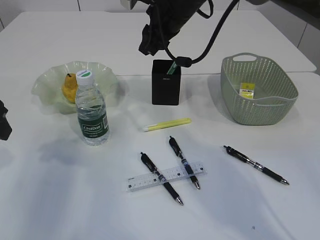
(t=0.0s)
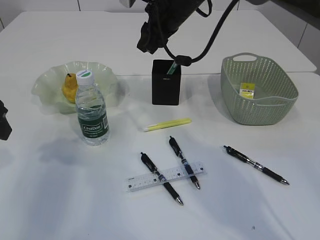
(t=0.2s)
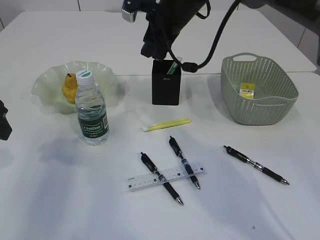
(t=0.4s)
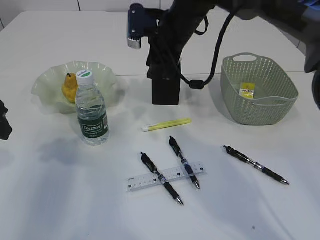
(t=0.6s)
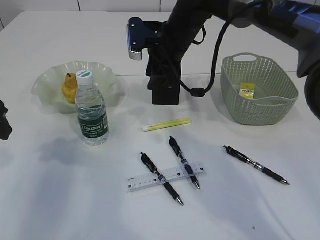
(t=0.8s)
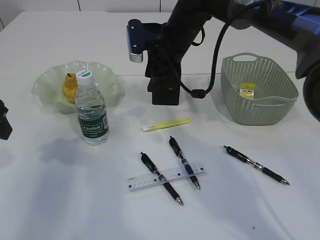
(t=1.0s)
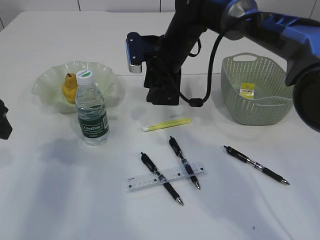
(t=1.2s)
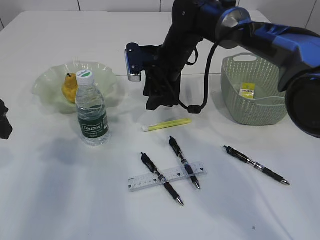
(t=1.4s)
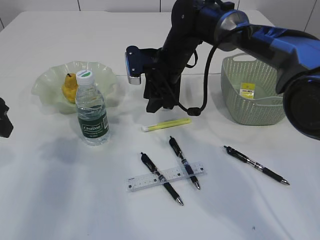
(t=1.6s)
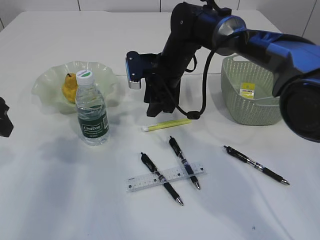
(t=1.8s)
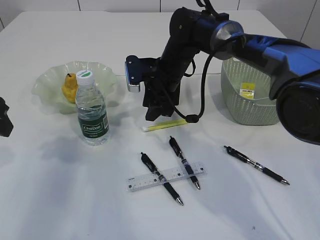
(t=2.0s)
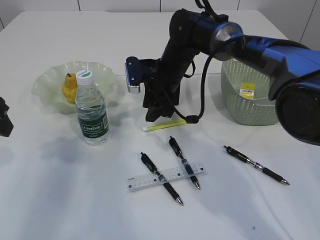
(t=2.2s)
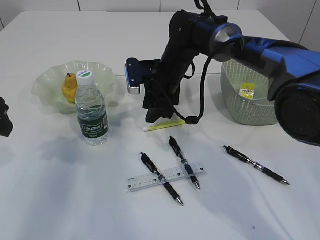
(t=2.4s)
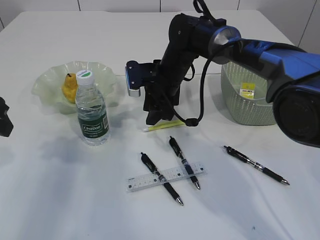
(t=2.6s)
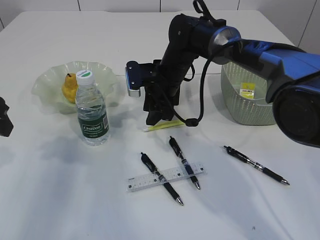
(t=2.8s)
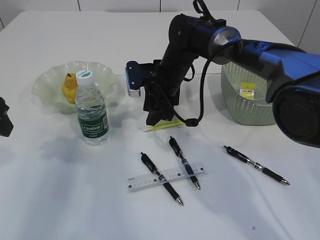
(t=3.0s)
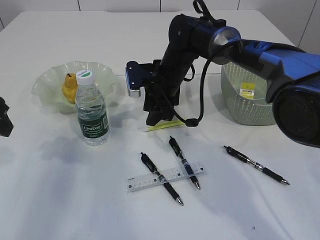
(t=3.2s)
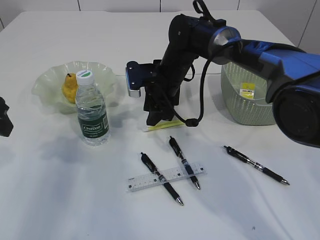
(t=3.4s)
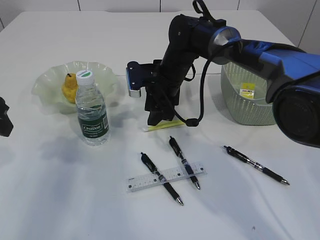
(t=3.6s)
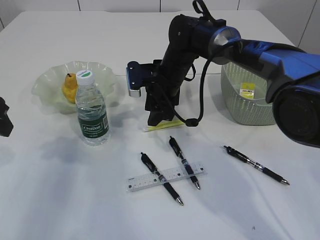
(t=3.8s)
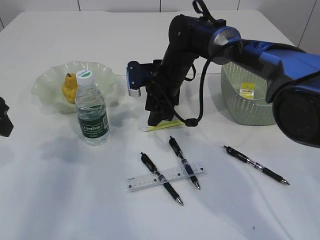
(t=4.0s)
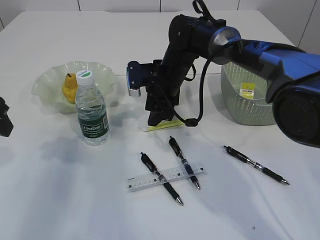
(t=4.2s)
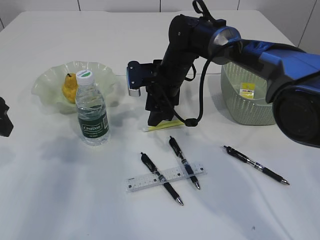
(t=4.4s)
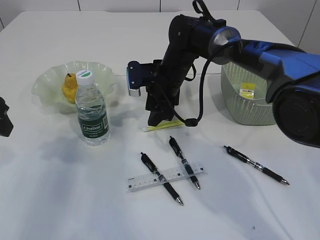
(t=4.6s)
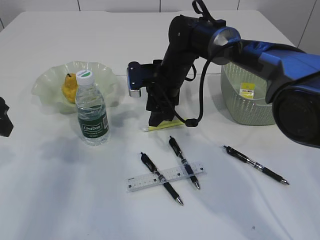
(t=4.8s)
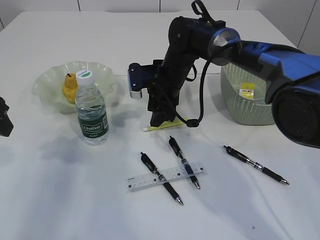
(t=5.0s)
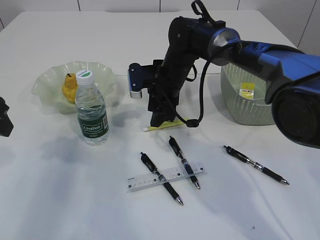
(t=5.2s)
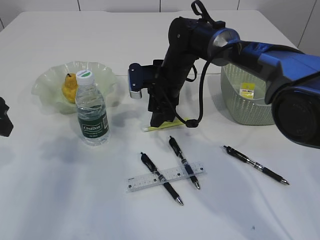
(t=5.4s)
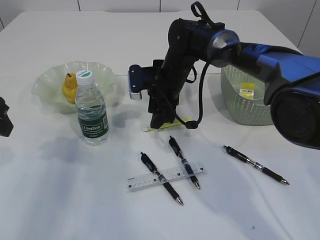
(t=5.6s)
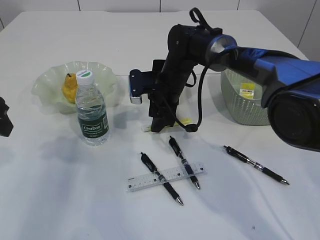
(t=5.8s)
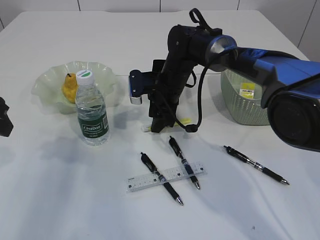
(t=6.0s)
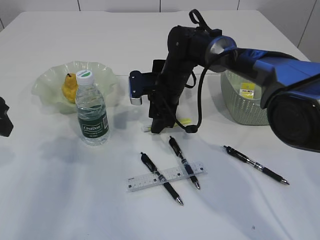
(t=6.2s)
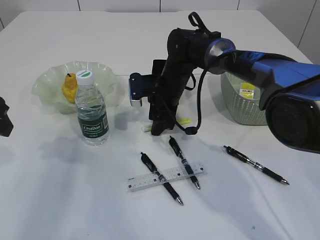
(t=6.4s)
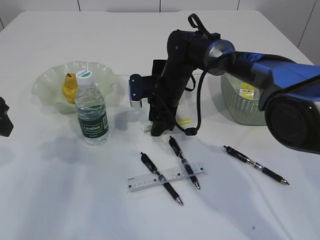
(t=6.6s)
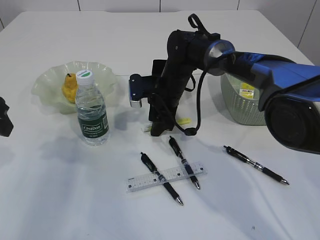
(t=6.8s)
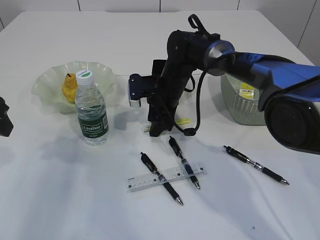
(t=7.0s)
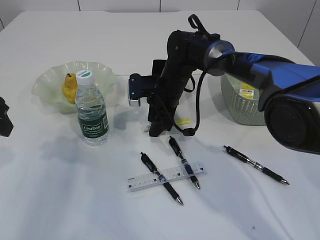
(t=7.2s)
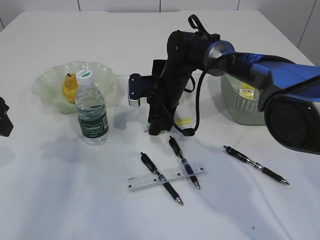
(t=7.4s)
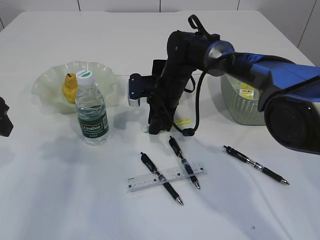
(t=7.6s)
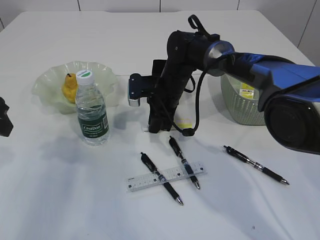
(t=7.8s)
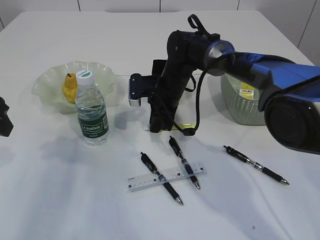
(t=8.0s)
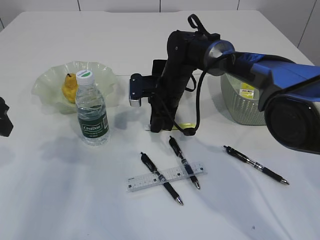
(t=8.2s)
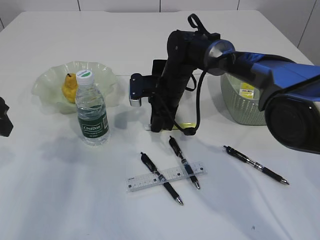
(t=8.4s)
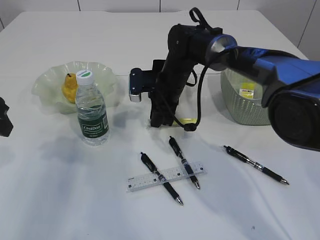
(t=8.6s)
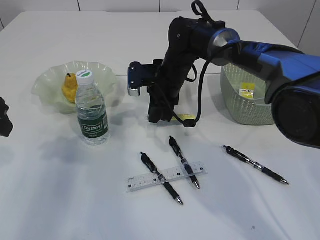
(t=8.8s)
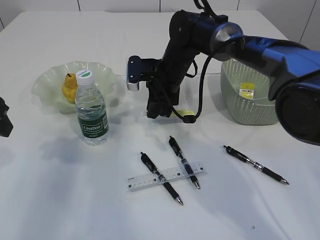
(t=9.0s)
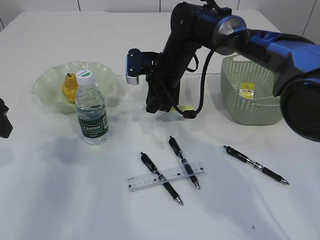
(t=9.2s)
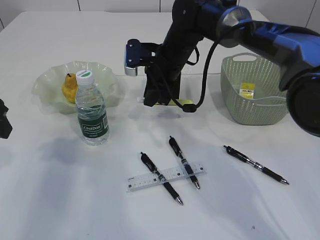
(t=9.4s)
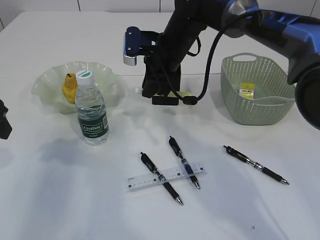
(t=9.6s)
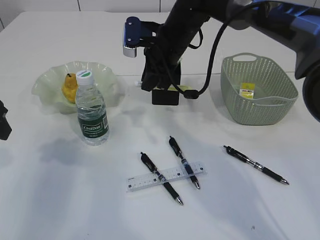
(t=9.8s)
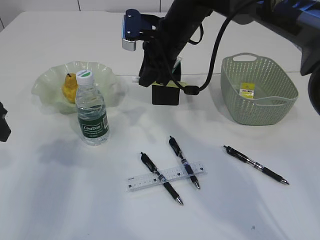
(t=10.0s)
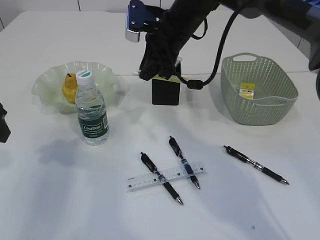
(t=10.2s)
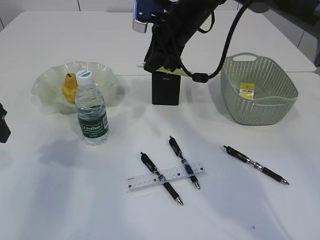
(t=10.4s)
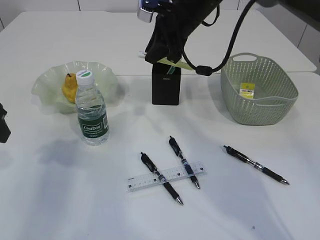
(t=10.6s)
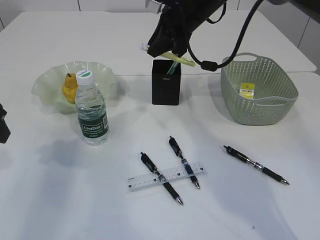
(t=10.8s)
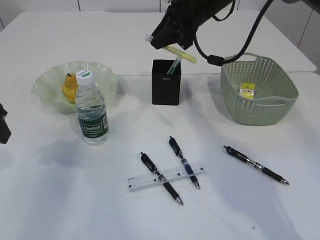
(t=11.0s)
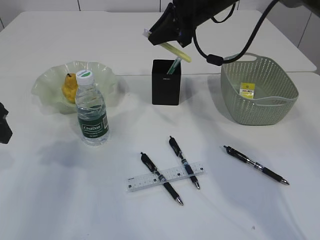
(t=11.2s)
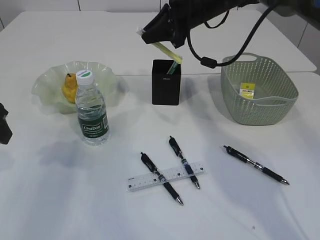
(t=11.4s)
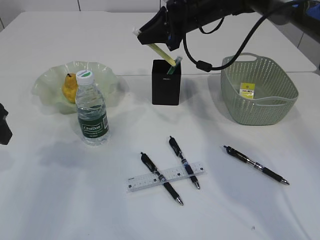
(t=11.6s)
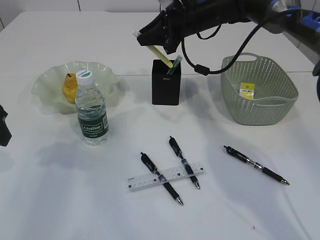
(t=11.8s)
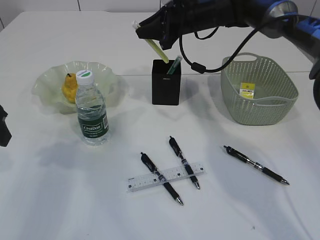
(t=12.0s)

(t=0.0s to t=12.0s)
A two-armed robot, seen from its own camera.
Step, t=0.0s - t=9.0s: pick up the yellow knife.
t=0.0s - t=1.6s: The right gripper goes roughly 10 cm downward.
t=1.6s - t=3.0s: The grippers stay close to where they were, moving slightly.
t=3.0s - t=4.4s: The two grippers keep their place.
t=4.4s - t=6.0s: The grippers stay close to where they were, moving slightly.
t=6.0s - t=7.6s: Both grippers stay put.
t=7.6s - t=9.0s: There are only small adjustments of the grippers.
t=9.0s - t=10.4s: The right gripper goes roughly 10 cm upward.
t=10.4s - t=12.0s: The right gripper shifts roughly 5 cm forward.

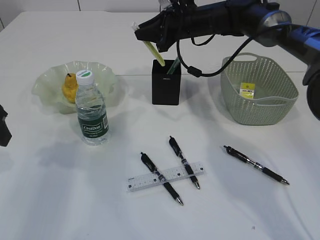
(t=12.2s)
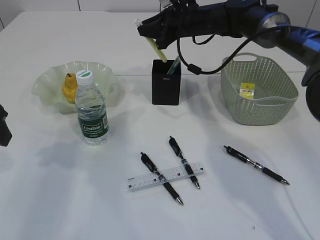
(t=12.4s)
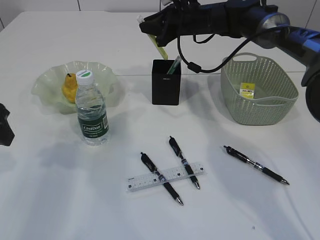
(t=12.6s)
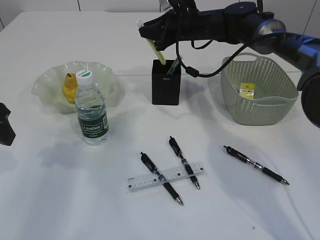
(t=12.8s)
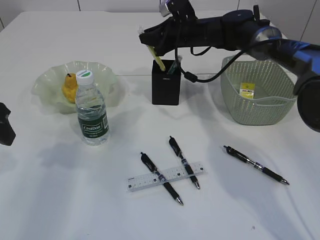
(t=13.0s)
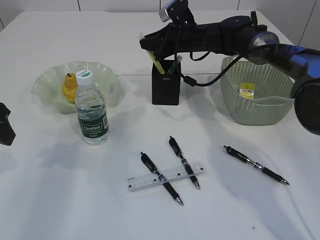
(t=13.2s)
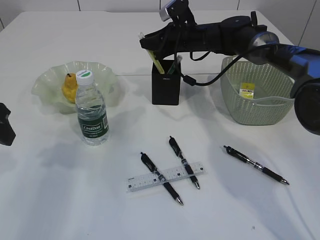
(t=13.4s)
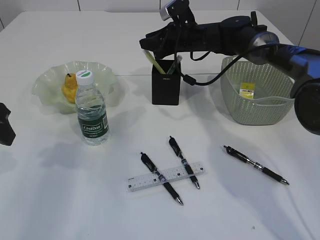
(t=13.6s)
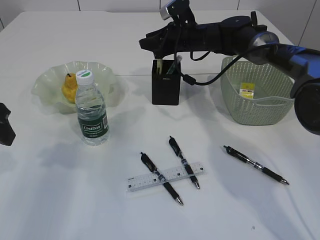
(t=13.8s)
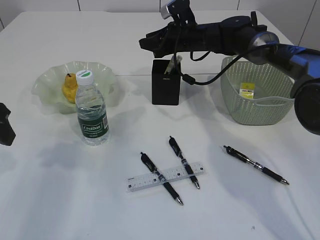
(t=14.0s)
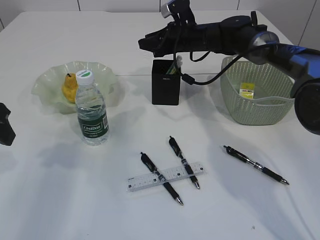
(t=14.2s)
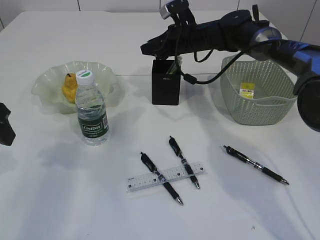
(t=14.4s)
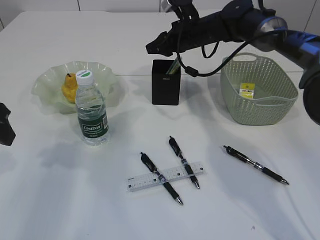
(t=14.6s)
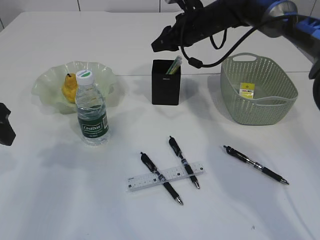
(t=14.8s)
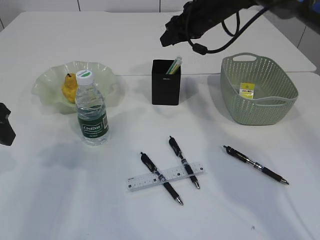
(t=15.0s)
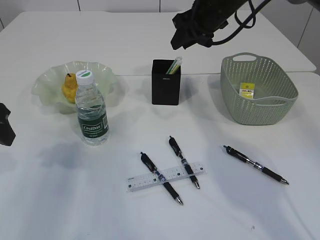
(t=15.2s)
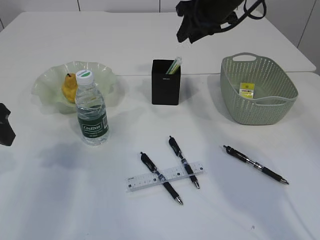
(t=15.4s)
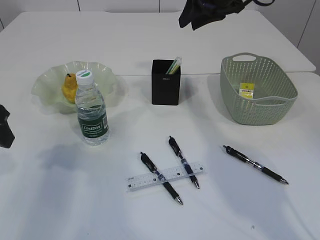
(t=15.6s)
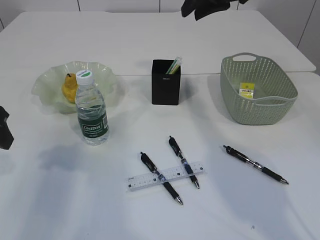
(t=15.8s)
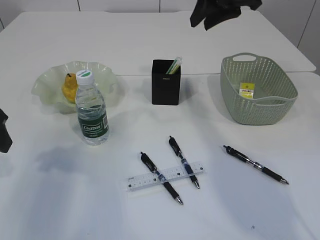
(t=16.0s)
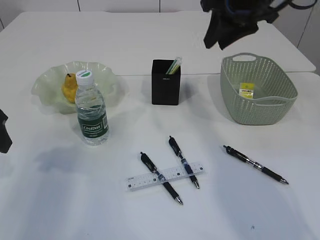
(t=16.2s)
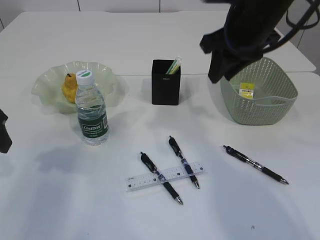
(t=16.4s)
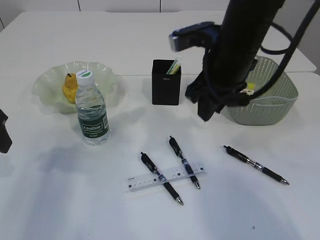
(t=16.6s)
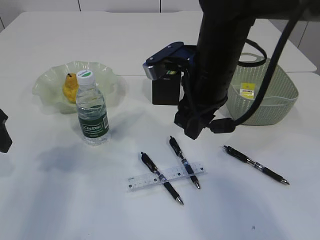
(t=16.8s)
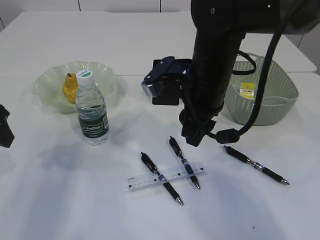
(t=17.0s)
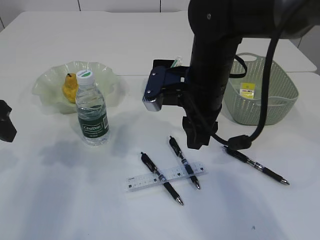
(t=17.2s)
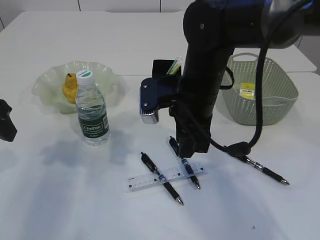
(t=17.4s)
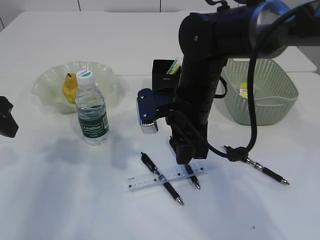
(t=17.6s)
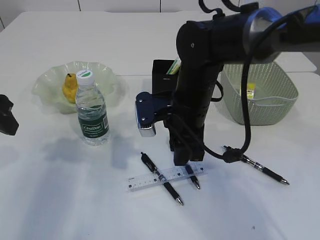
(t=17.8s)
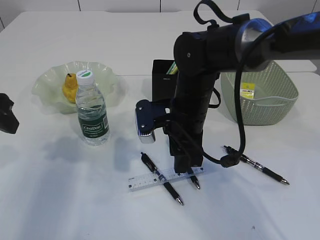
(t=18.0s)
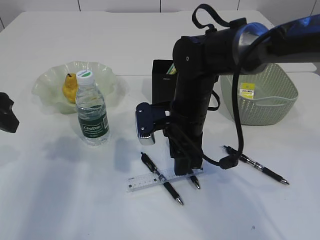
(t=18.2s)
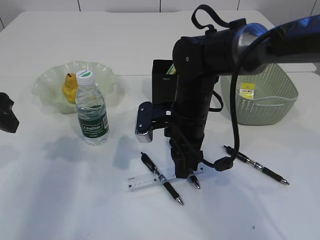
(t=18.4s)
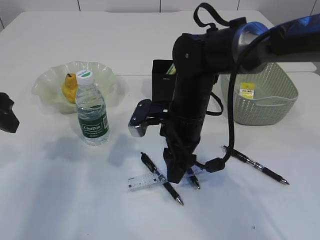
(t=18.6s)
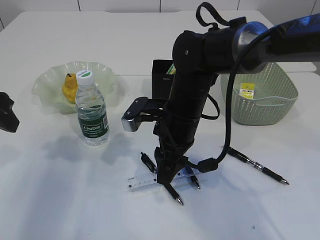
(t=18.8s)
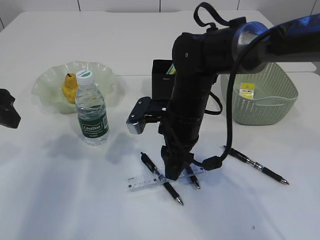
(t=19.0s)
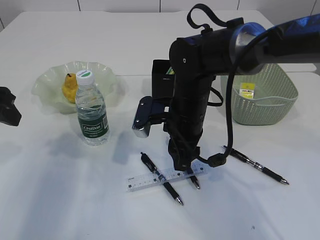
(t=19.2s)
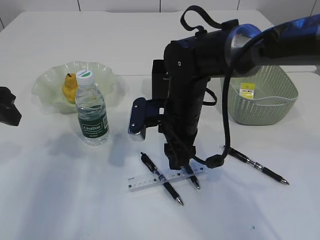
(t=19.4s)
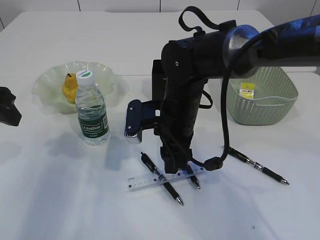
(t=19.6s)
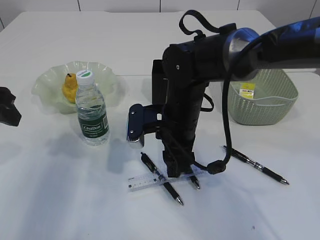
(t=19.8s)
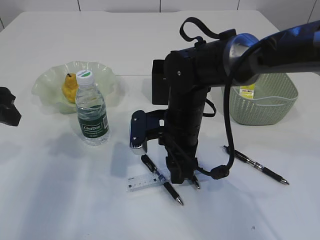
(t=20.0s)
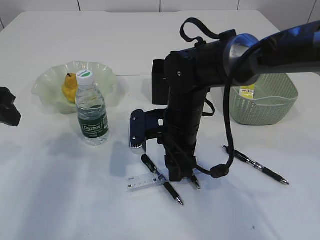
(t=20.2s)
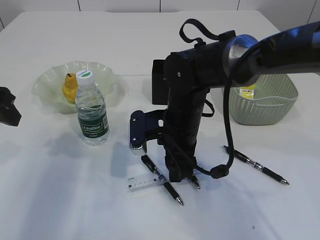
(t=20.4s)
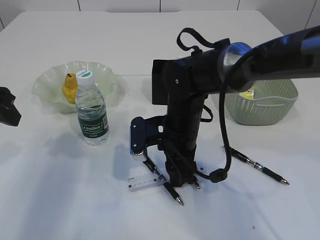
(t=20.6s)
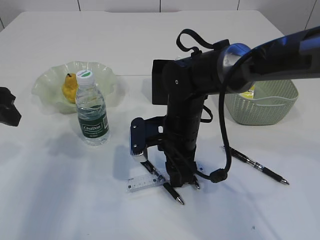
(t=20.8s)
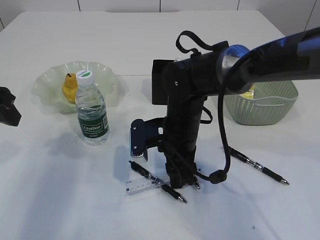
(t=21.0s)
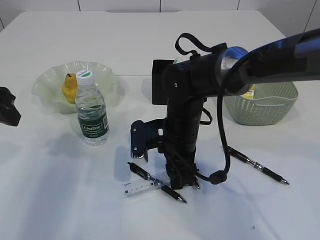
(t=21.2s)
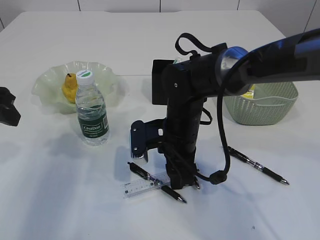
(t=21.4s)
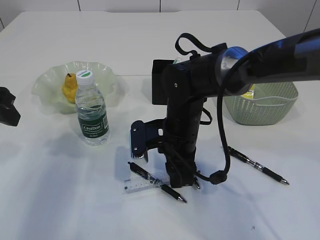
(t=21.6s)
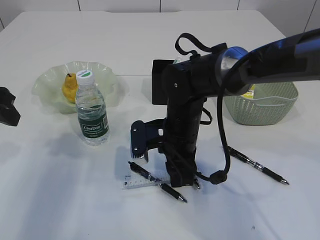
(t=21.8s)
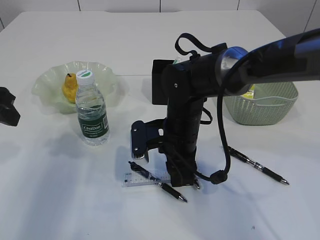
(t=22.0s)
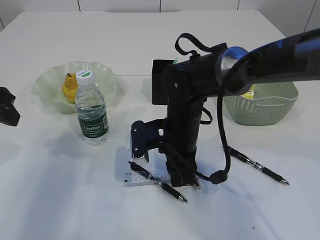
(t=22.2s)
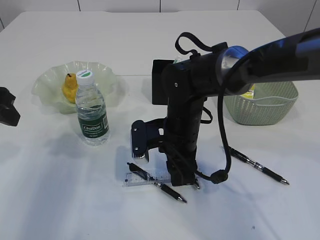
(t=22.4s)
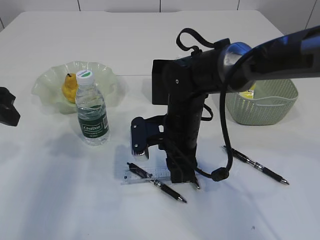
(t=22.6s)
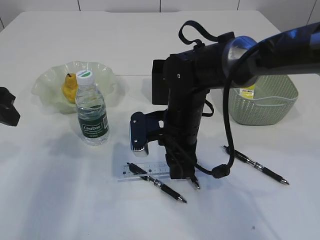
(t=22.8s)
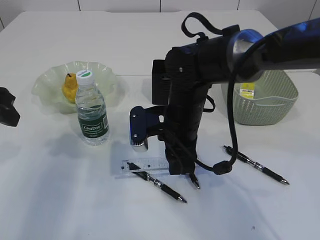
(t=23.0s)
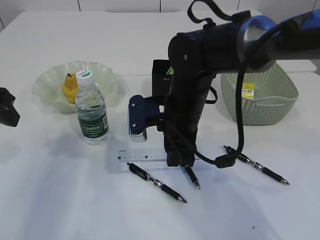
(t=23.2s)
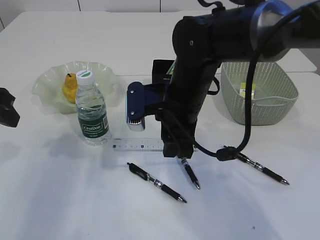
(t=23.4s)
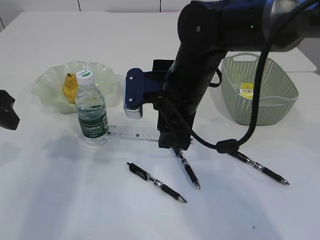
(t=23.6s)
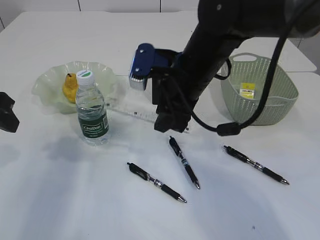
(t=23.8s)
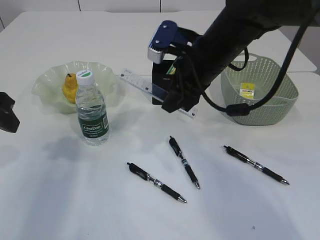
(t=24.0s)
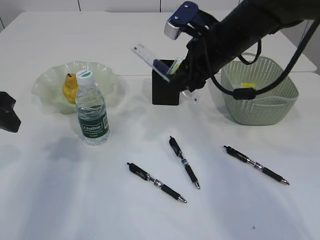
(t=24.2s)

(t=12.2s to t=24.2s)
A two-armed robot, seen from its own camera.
Step, t=12.2s - t=14.6s: place the yellow knife into the pen holder.
Step, t=14.8s - t=23.0s: pick up the ruler.
t=12.2s - t=13.8s: The grippers make only small movements.
t=13.8s - t=15.2s: The right gripper travels upward and backward by roughly 10 cm.
t=15.2s - t=16.6s: The right gripper moves backward, approximately 15 cm.
t=16.6s - t=18.2s: The right gripper moves downward and to the left, some 15 cm.
t=19.8s - t=21.2s: The grippers make only small movements.
t=21.2s - t=22.6s: Both grippers stay put.
t=22.6s - t=24.2s: The right gripper goes about 15 cm upward and to the right.
